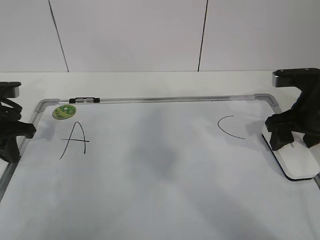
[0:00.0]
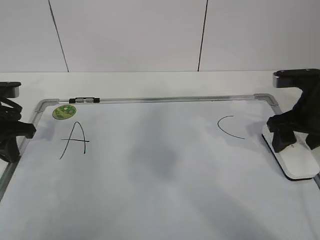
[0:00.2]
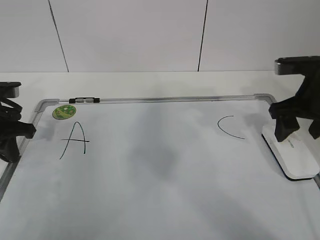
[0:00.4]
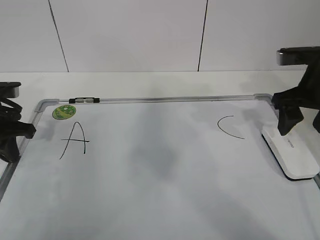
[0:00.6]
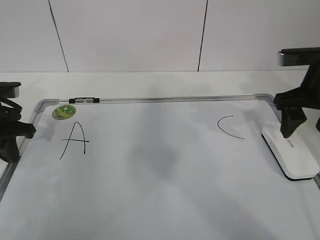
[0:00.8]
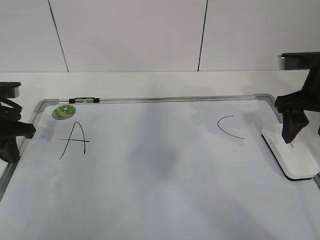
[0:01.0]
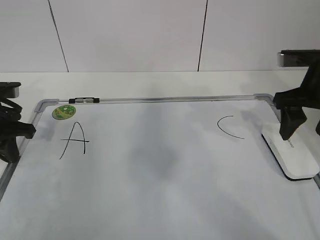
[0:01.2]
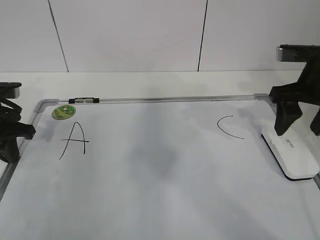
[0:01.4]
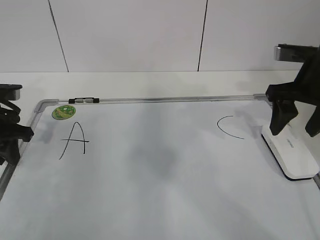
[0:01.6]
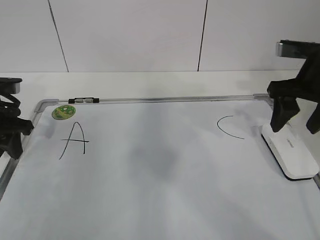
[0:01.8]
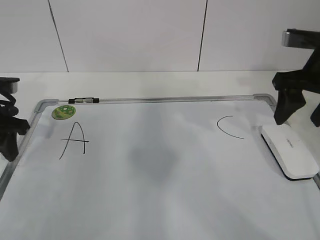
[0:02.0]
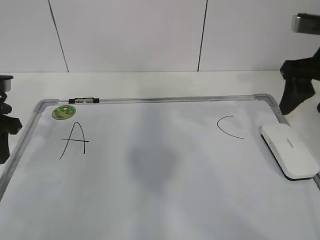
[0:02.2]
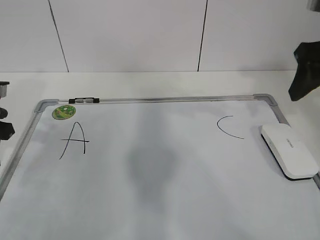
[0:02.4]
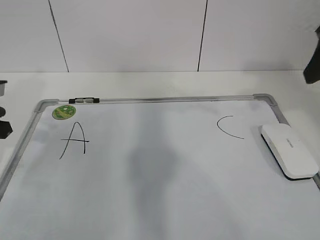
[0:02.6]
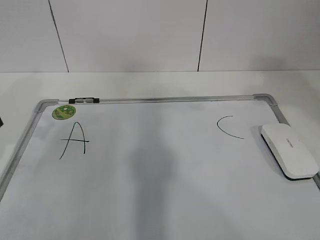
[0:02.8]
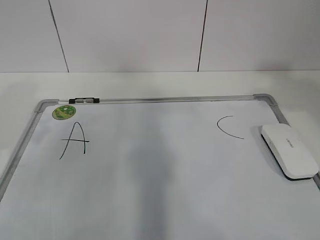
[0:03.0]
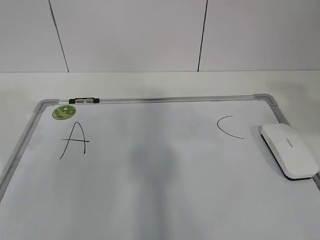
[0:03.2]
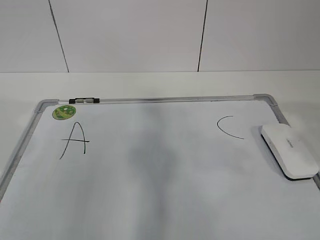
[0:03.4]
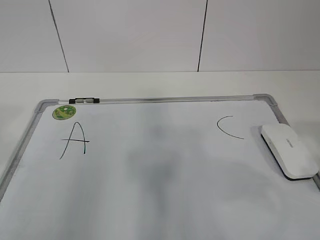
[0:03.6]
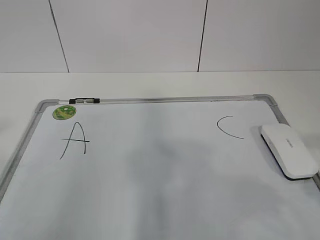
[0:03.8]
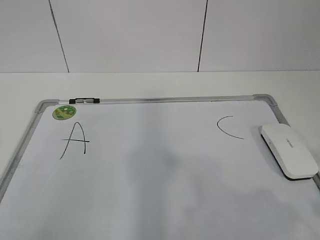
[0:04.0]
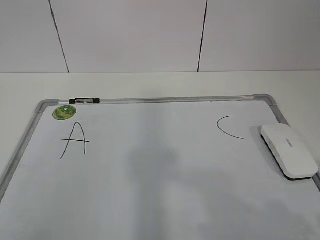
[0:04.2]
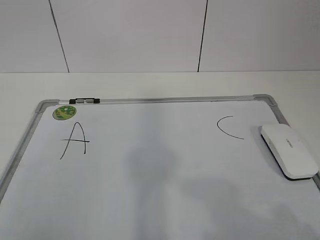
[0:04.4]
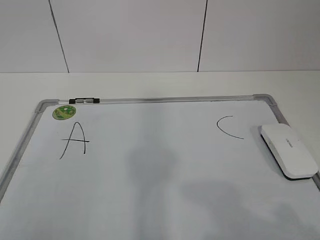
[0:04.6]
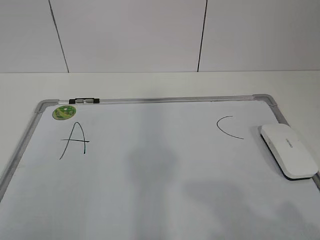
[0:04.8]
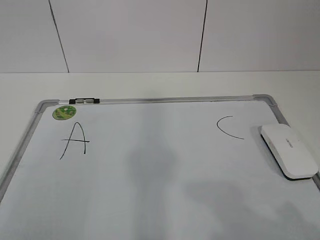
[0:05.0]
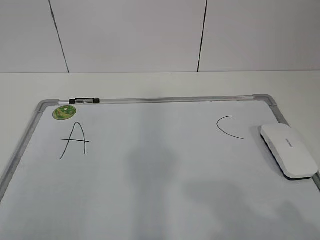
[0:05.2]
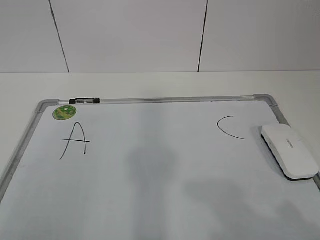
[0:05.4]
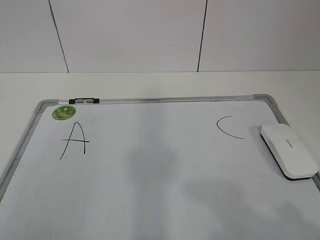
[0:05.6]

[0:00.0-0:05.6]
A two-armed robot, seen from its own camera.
Task of the whole recording: pick up the eraser on the blackboard and erase the letter "B".
0:00.0 to 0:01.4: The right gripper shifts about 5 cm upward.
0:01.4 to 0:02.8: The left gripper moves upward, some 5 cm, and opens up, while the right gripper heads upward and backward, covering approximately 20 cm.
0:02.8 to 0:04.2: The right gripper heads backward and downward, covering roughly 25 cm.
